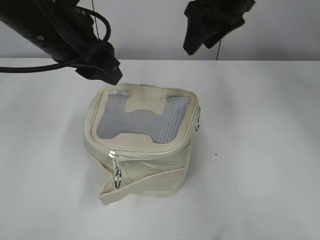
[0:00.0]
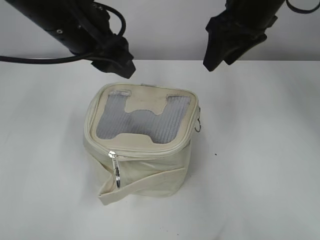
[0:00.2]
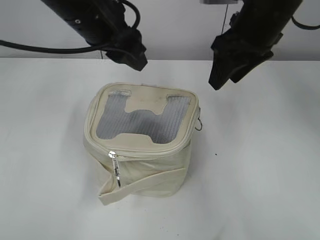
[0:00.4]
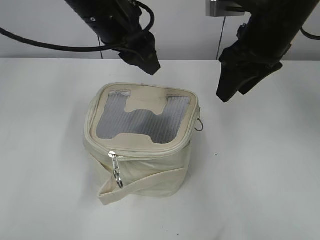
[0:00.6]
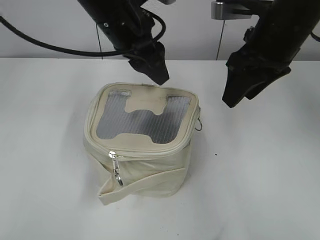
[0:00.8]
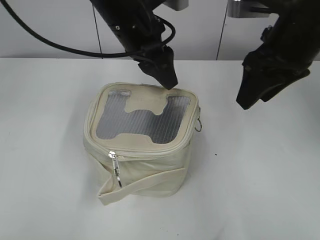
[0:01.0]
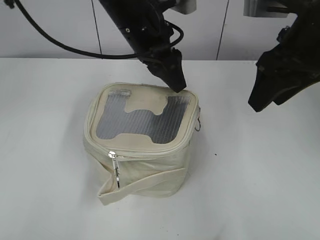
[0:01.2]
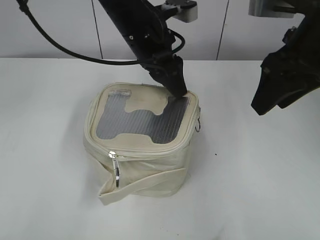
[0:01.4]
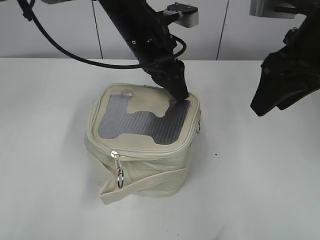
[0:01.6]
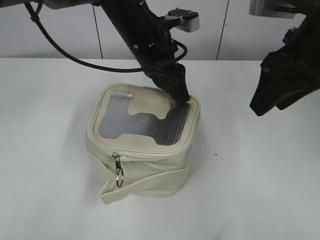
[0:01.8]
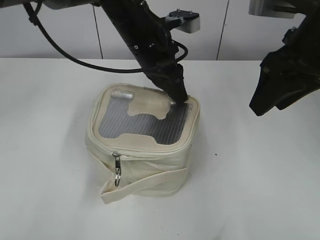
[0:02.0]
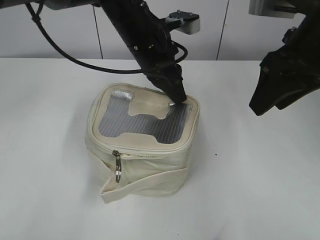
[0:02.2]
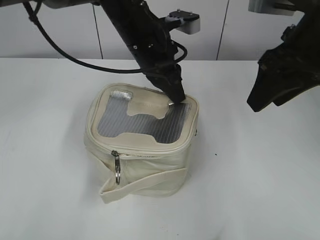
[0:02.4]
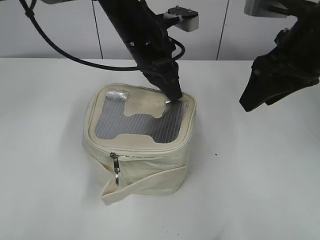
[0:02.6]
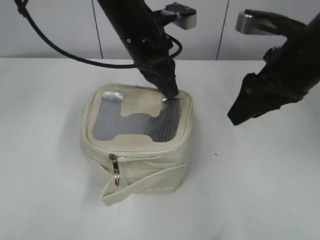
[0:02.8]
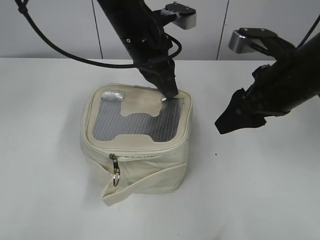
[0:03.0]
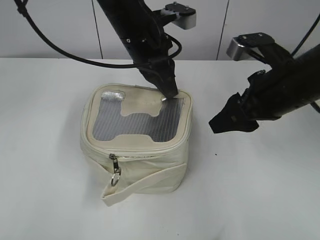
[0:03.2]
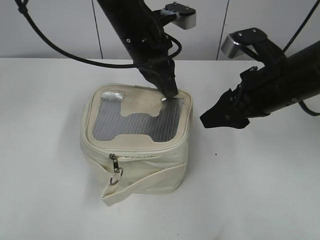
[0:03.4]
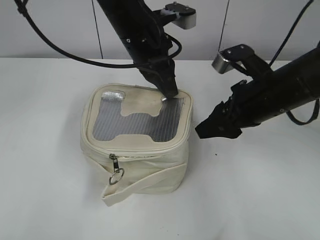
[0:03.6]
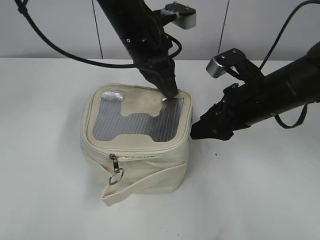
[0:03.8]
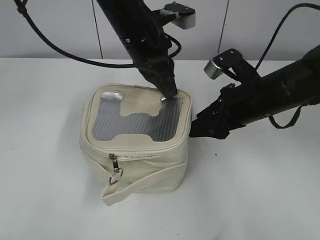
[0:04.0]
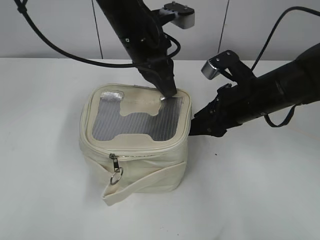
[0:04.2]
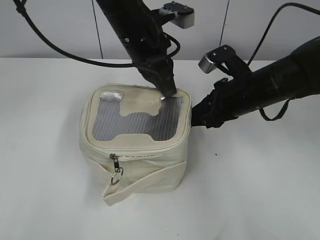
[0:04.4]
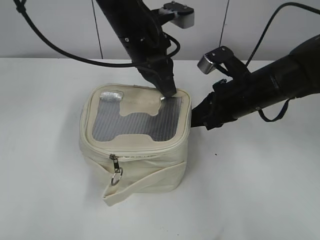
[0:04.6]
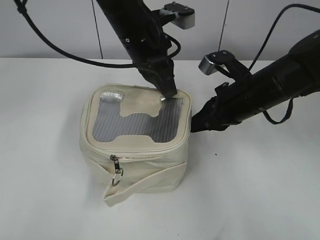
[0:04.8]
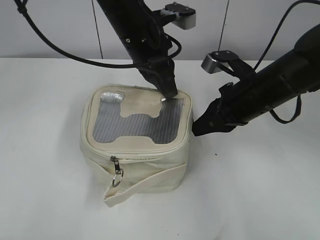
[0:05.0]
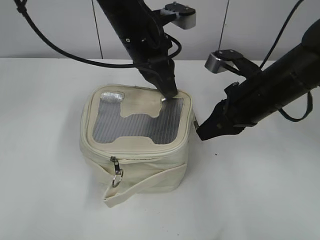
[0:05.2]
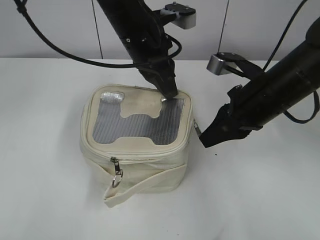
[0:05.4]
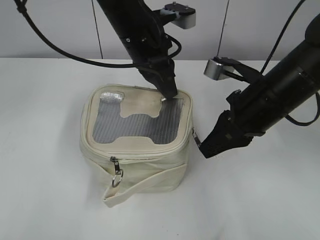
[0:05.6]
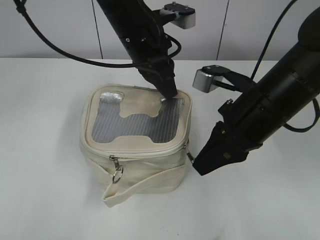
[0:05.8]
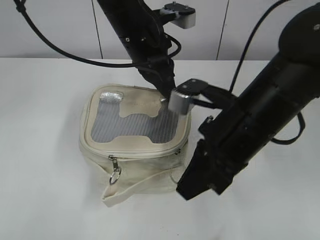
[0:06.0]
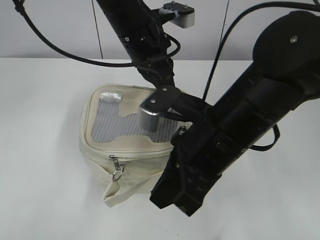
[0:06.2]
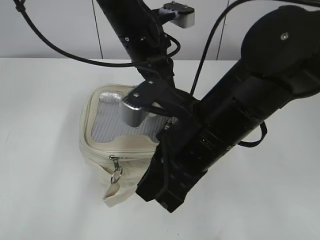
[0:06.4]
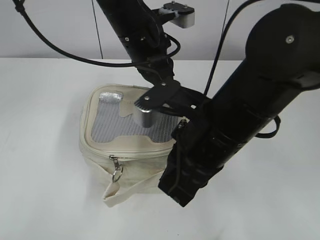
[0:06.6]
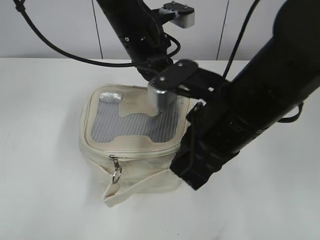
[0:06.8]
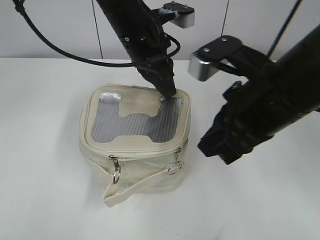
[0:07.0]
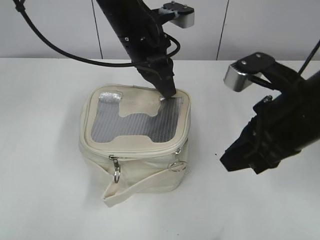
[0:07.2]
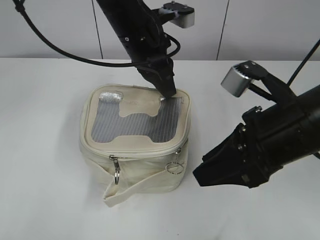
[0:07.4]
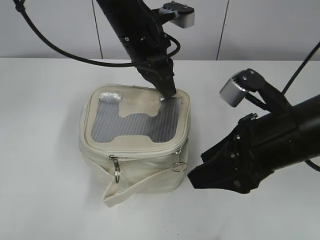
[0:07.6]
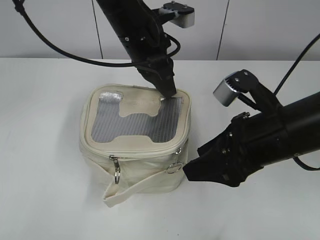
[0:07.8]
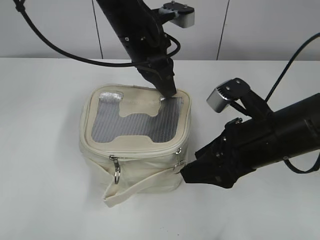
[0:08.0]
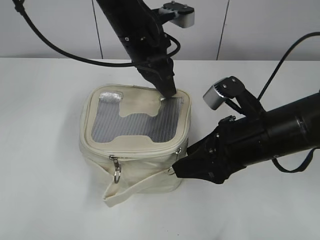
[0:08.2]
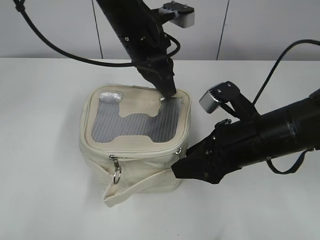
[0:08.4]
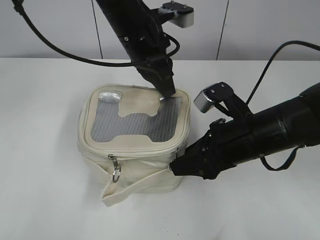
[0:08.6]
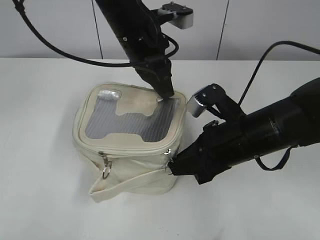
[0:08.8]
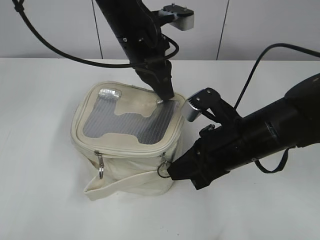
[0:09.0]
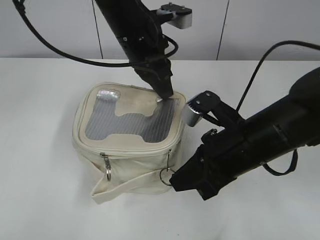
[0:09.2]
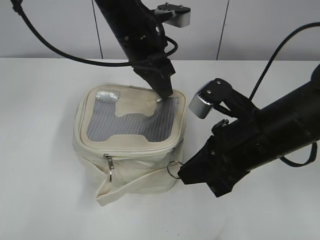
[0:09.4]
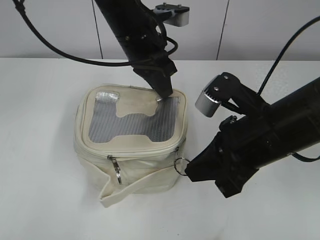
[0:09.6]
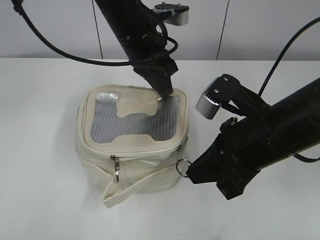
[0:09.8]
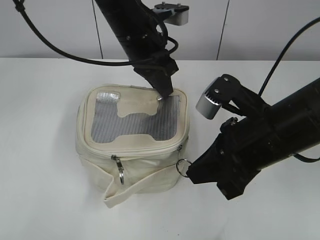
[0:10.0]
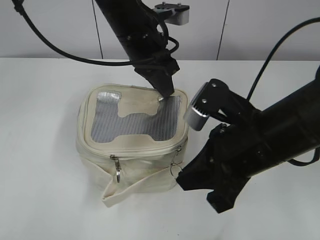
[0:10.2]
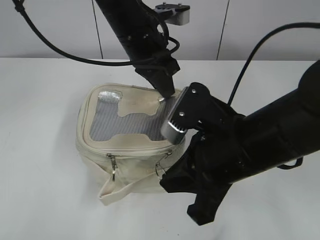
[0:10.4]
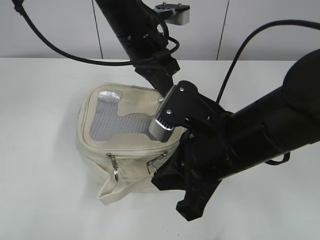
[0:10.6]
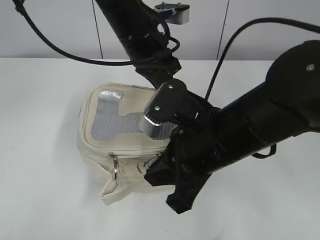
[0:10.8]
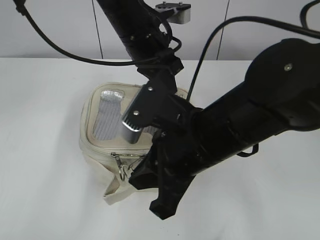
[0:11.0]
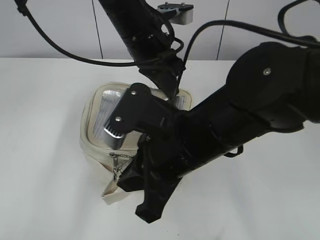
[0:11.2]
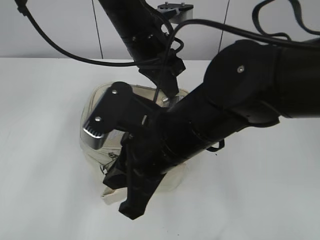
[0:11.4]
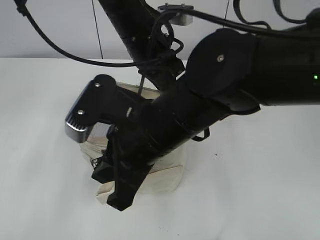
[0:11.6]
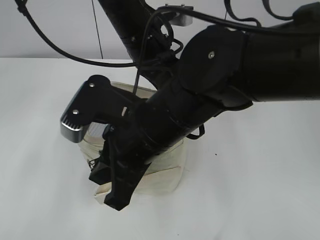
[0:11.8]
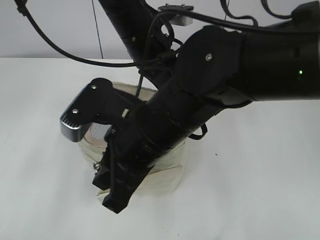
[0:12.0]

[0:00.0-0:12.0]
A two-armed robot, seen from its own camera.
0:00.0 to 0:01.6: The right gripper travels backward and to the right by roughly 15 cm. The left gripper moves to the right, forward and downward, roughly 15 cm.
0:01.6 to 0:03.0: The right gripper goes approximately 5 cm downward, while the left gripper closes.
0:03.0 to 0:04.4: The right gripper moves downward, roughly 10 cm, and closes.
0:04.4 to 0:06.0: The right gripper heads backward, covering roughly 10 cm, and closes.
0:06.0 to 0:07.6: The right gripper shifts roughly 5 cm to the right, and opens its fingers.
0:07.6 to 0:09.0: The right gripper travels downward by approximately 5 cm, and closes up.
0:09.0 to 0:10.4: The right gripper moves upward, roughly 5 cm.
0:10.4 to 0:12.0: The right gripper goes roughly 10 cm to the left.

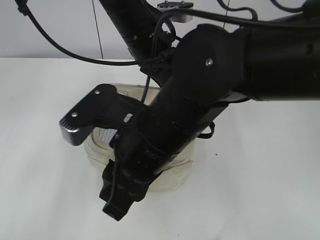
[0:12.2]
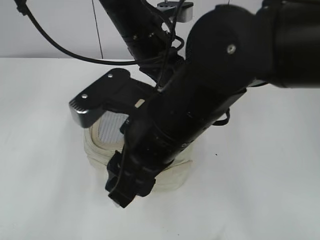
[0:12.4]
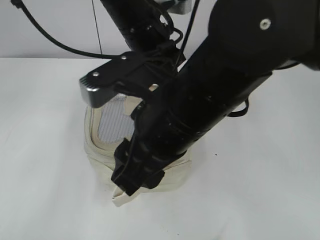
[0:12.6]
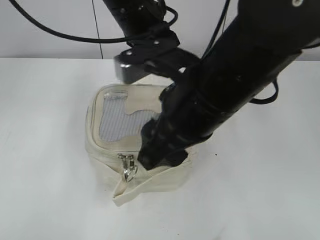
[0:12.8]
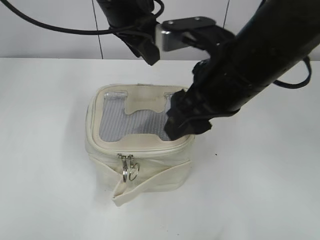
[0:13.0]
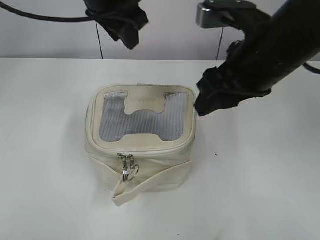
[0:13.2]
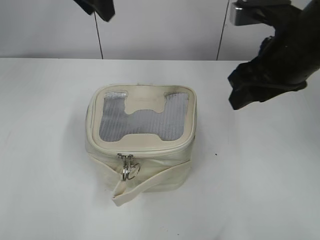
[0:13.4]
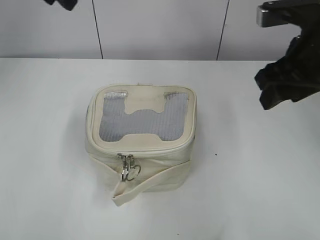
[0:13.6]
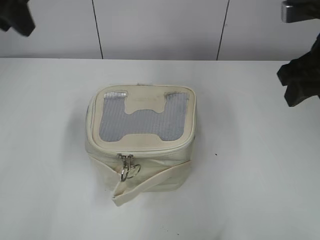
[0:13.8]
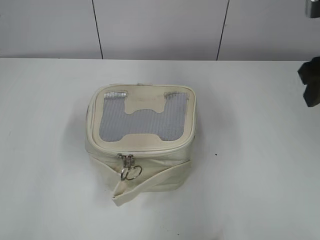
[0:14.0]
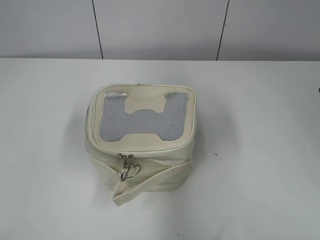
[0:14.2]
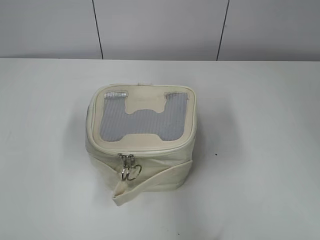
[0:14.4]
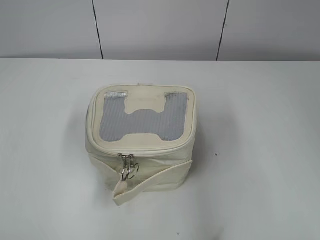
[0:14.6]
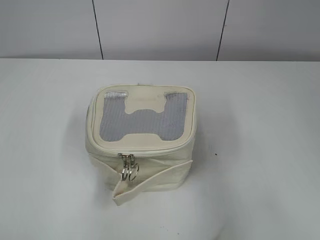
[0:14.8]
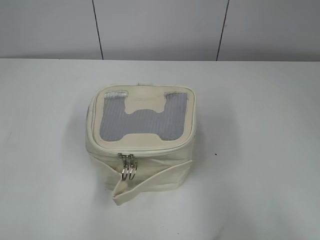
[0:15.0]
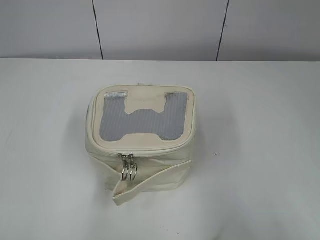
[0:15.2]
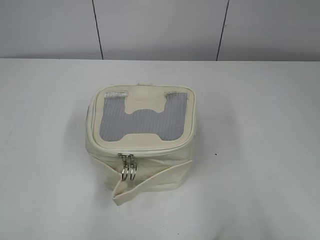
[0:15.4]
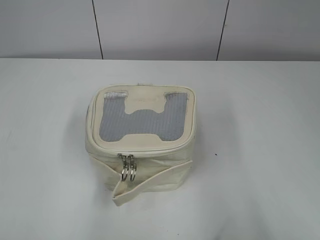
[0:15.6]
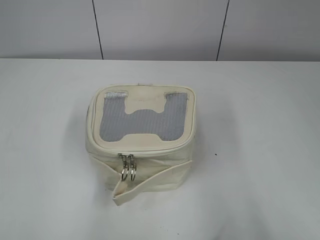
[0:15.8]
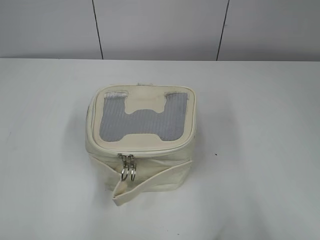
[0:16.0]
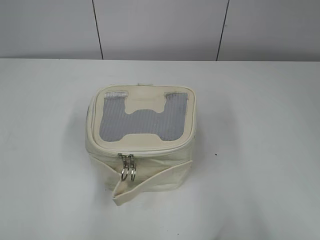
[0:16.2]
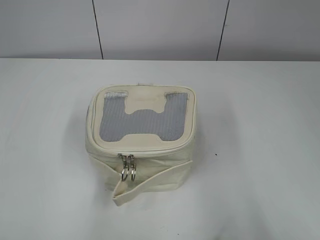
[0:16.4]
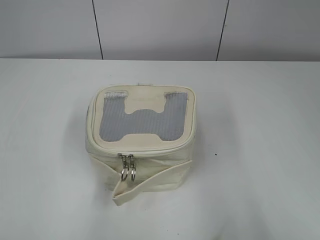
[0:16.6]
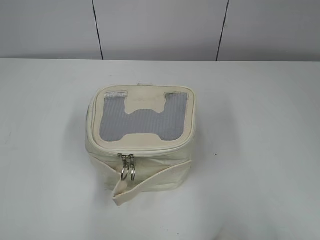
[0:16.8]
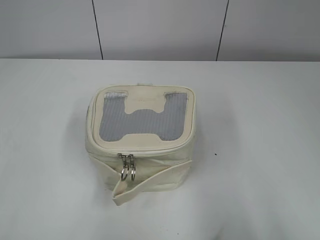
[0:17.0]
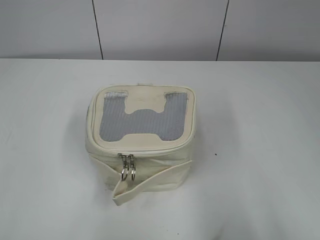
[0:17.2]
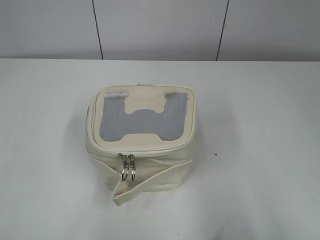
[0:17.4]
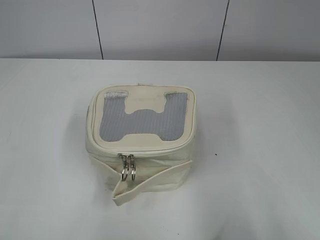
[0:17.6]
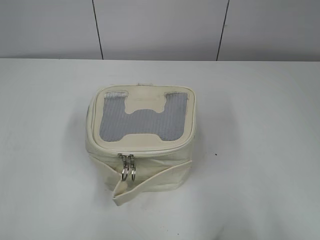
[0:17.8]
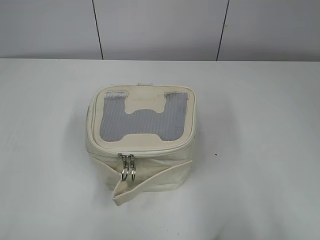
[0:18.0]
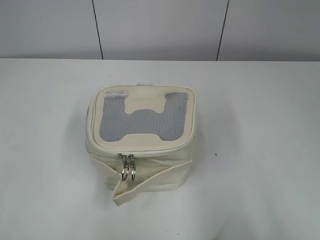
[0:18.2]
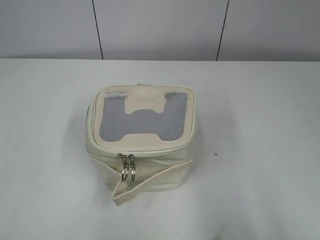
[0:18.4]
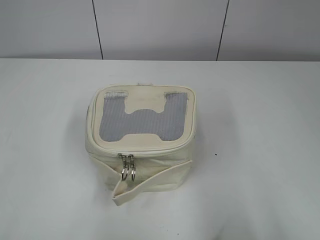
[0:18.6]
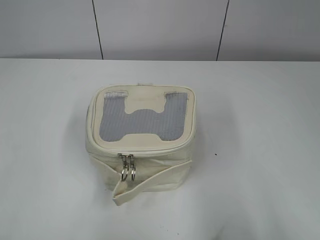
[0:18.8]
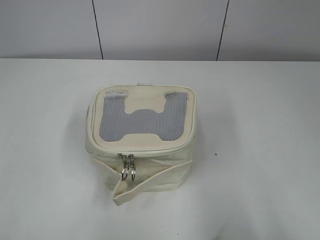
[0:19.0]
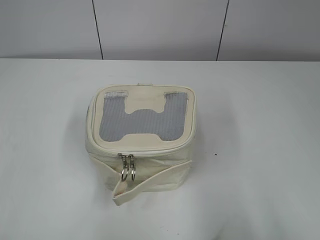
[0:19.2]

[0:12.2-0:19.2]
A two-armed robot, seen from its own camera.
Step, 0:12.2 to 0:12.8: Hold the bag with your left hand.
0:12.2 to 0:13.6: The left gripper goes some 20 cm to the left and upward, and opens; the right gripper shifts roughly 20 cm to the right and forward, and opens up.
0:13.6 to 0:15.0: The left gripper is displaced backward and to the left by approximately 35 cm; the right gripper goes approximately 25 cm backward and to the right.
0:17.8 to 0:19.2: Both grippers stay about where they are.

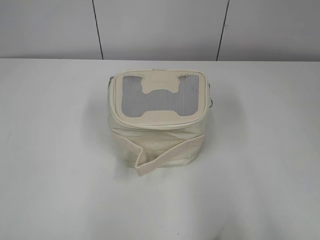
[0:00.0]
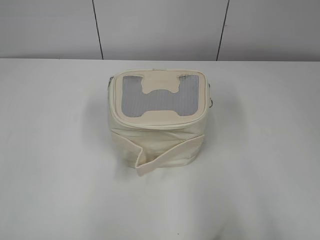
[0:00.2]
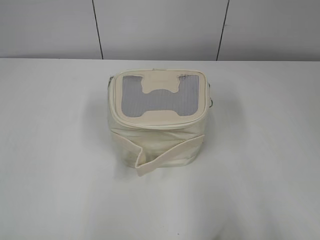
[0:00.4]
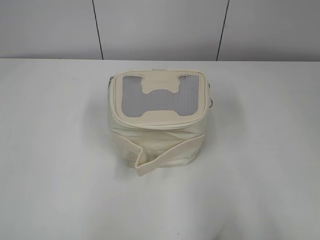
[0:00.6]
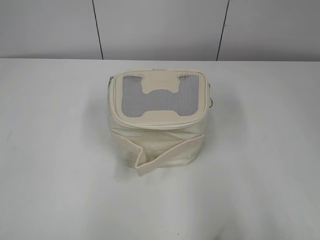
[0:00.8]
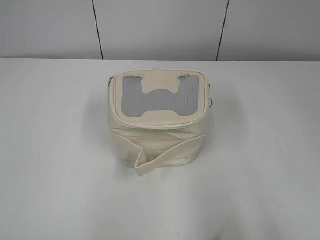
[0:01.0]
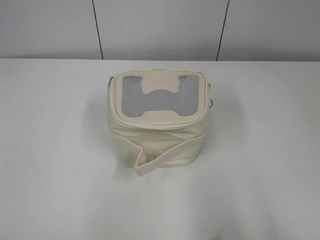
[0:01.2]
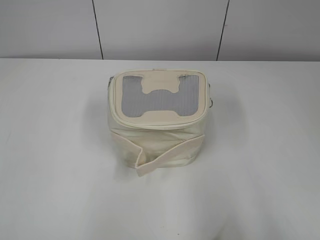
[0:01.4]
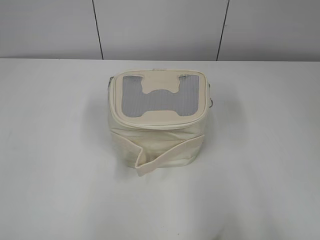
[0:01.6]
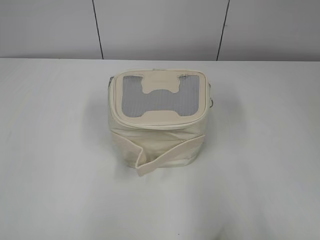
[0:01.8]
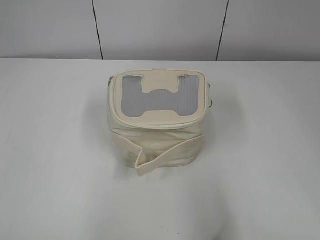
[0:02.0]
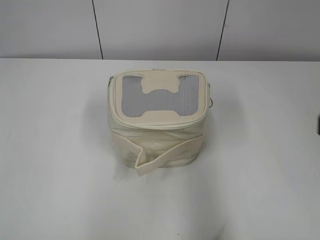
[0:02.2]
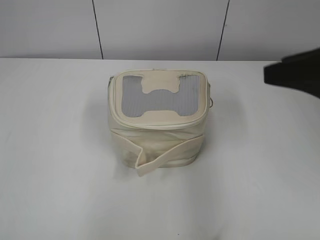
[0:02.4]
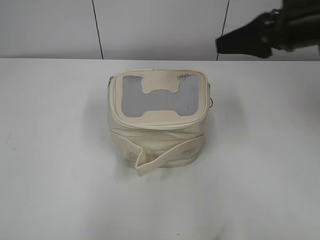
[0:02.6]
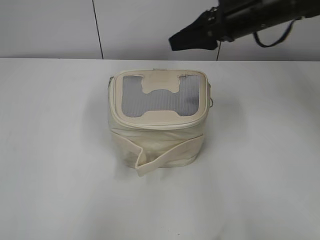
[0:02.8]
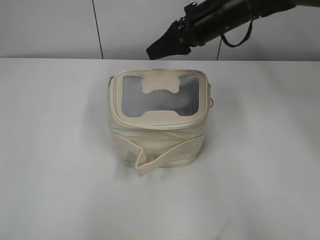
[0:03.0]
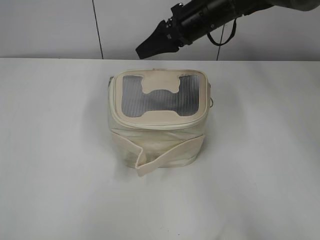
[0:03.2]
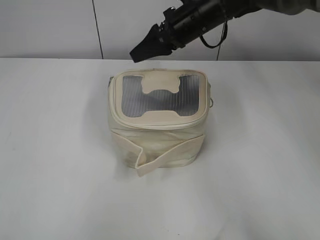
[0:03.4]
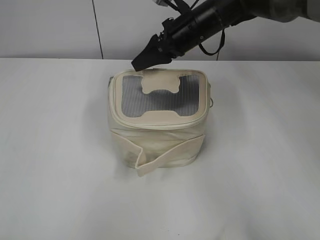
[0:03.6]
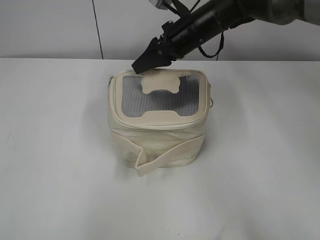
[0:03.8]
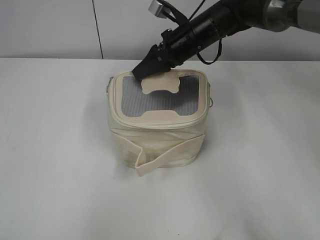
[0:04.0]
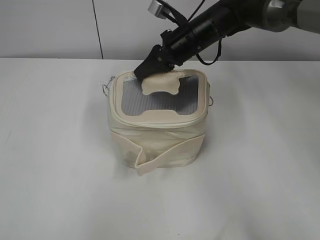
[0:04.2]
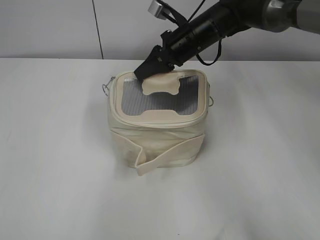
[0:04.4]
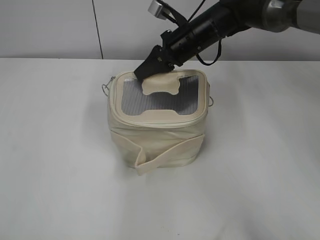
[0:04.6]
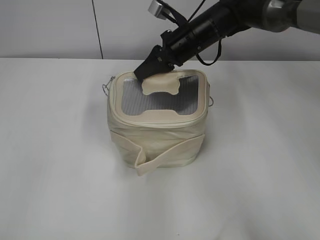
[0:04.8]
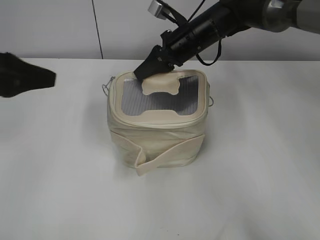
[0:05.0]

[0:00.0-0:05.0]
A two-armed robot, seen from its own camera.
0:01.6 to 0:03.4: The right gripper shifts approximately 50 cm forward and to the left.
0:03.4 to 0:05.0: The right gripper closes up, while the left gripper goes some 20 cm forward.
